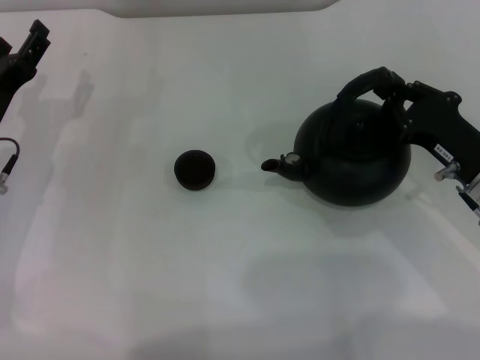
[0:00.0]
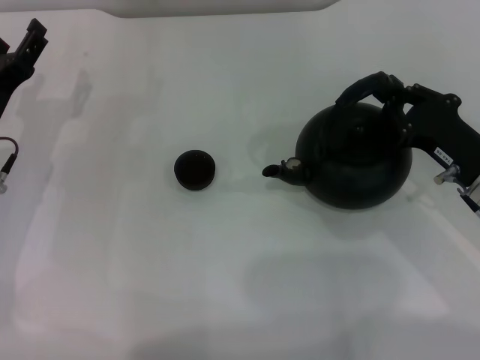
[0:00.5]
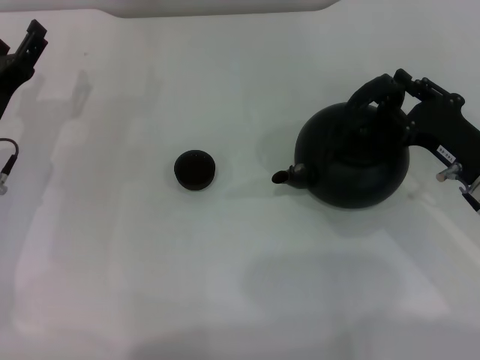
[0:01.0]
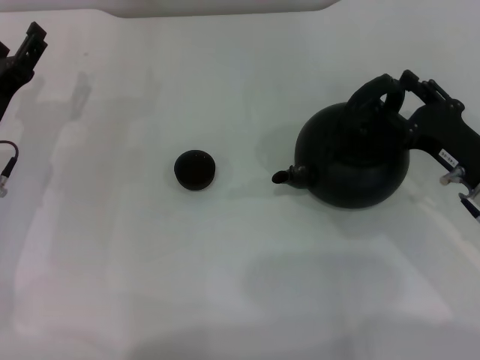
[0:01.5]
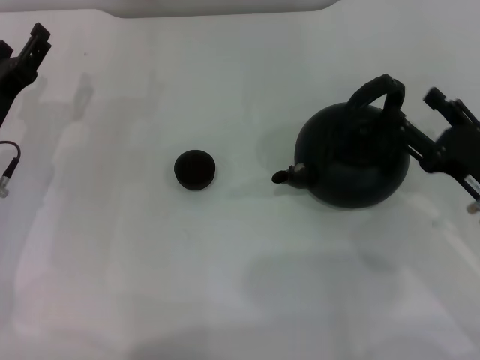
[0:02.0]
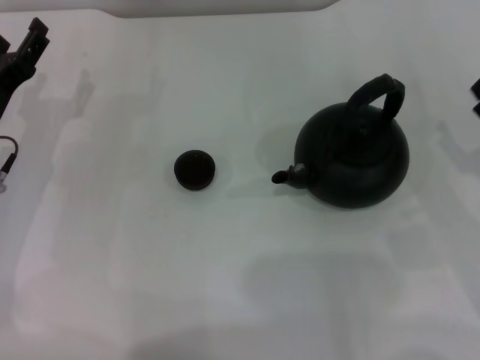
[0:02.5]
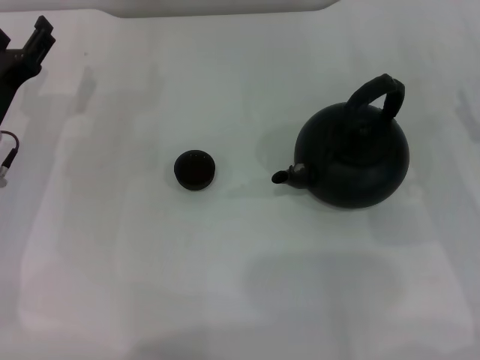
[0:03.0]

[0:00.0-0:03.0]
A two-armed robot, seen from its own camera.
Task of the whole recording: Grasp the handle of the teapot with one hand and pour tea into the teacup.
Step, 0:00.0 to 0:02.0: Put down the teapot with the right gripper.
0:00.0 to 0:01.5: The right gripper opens its fingers.
0:01.5 to 0:03.0: The right gripper heads to the right, covering approximately 5 cm, and opens up.

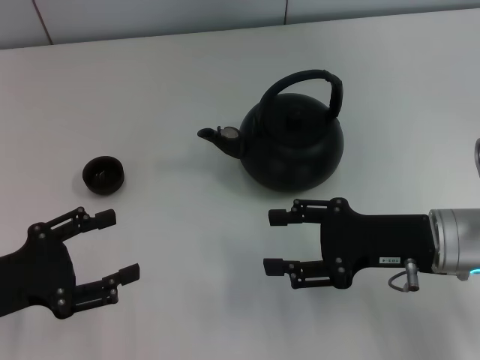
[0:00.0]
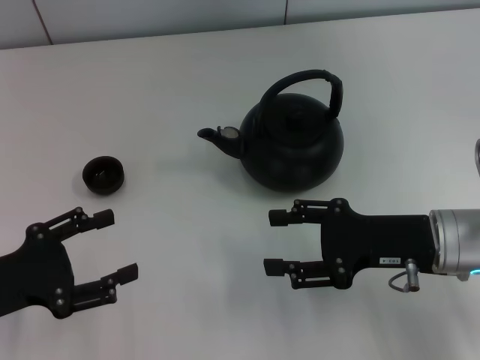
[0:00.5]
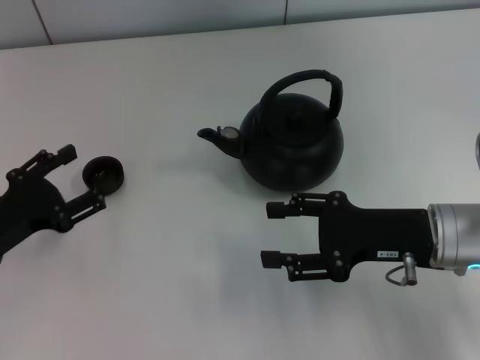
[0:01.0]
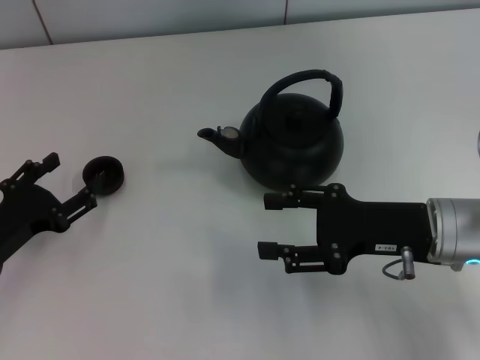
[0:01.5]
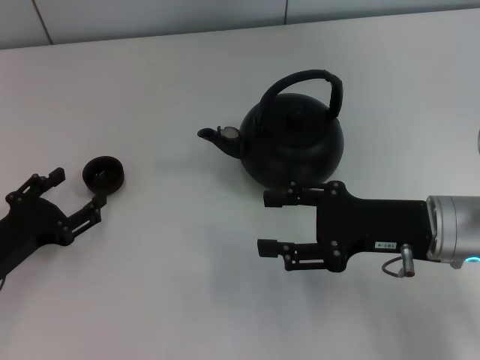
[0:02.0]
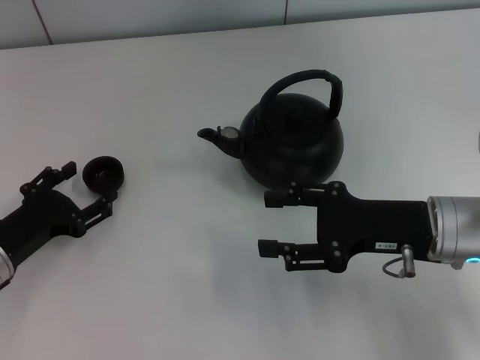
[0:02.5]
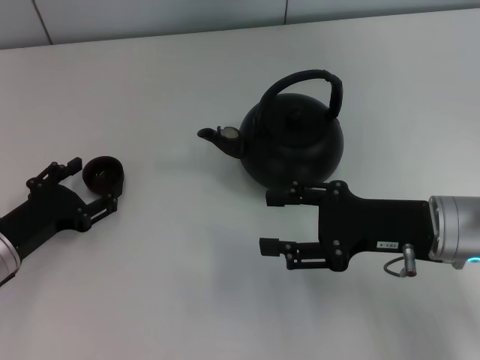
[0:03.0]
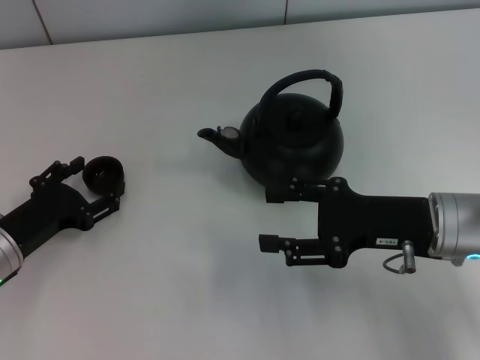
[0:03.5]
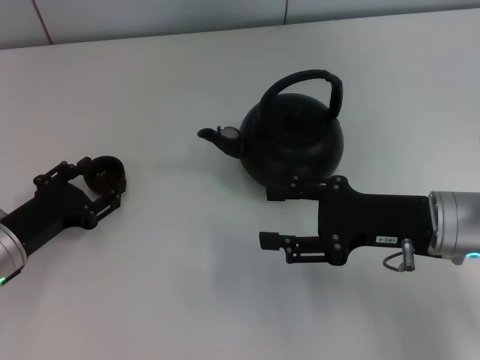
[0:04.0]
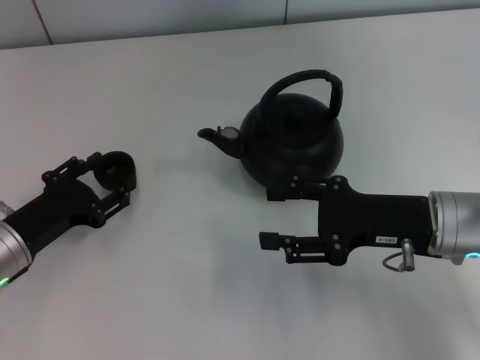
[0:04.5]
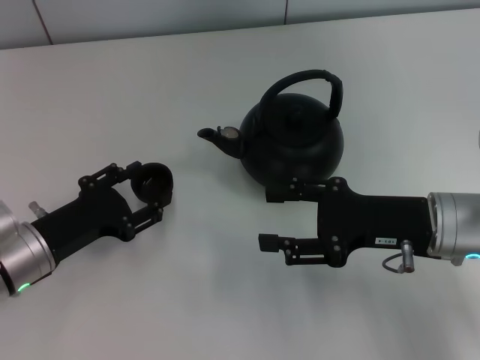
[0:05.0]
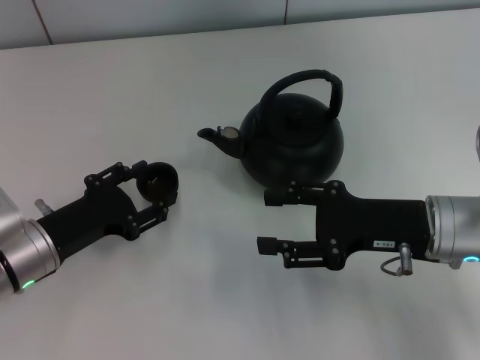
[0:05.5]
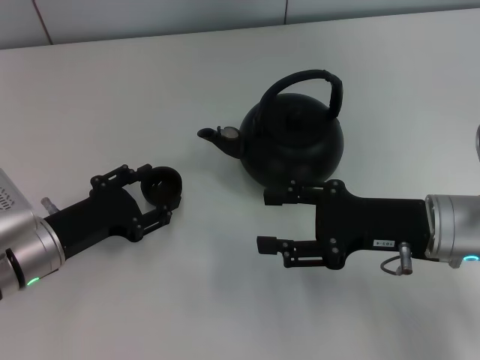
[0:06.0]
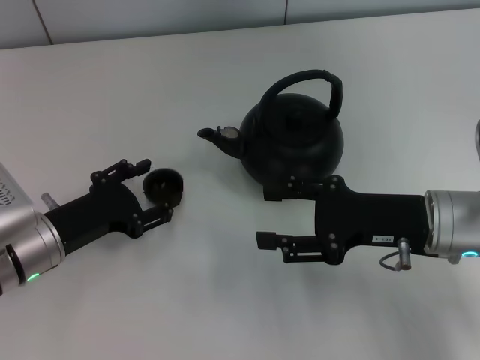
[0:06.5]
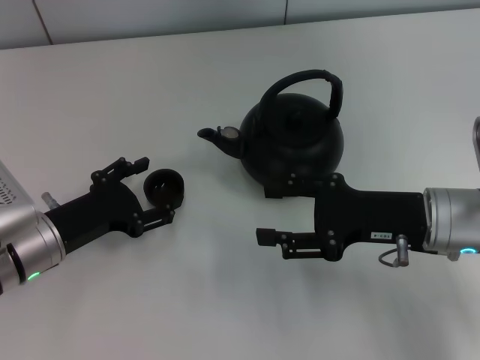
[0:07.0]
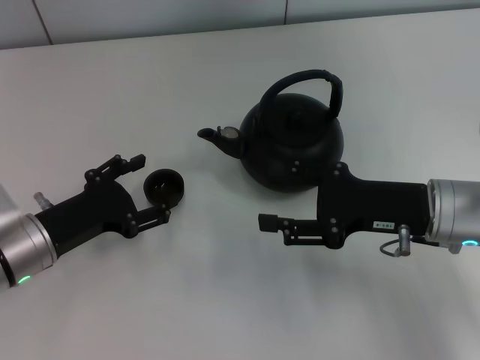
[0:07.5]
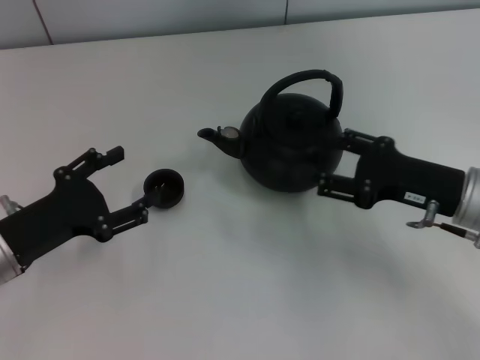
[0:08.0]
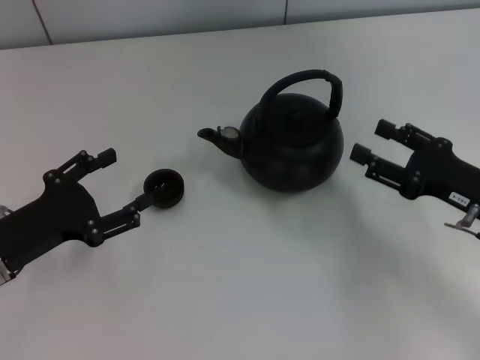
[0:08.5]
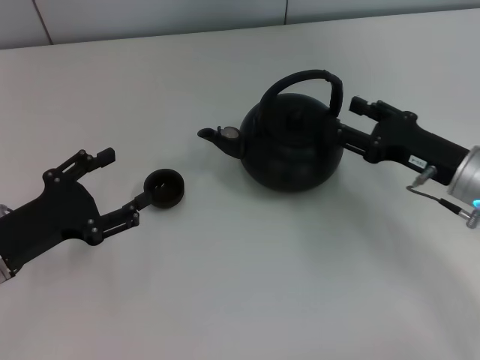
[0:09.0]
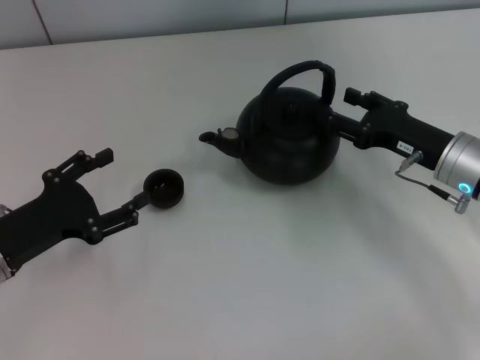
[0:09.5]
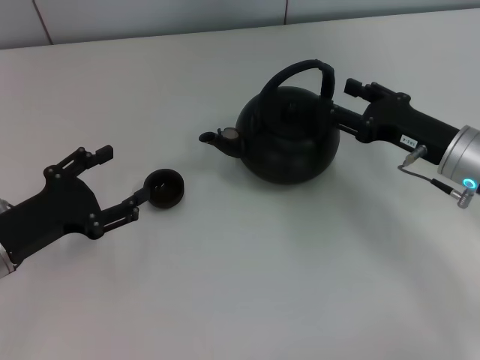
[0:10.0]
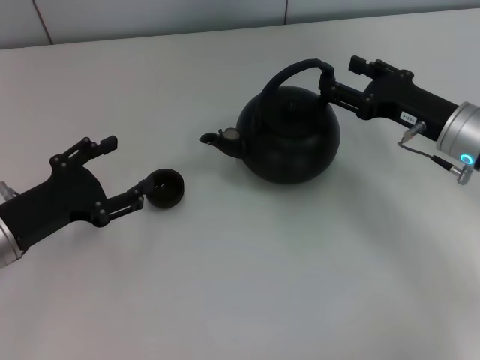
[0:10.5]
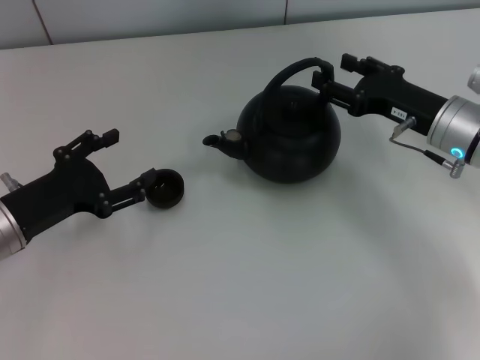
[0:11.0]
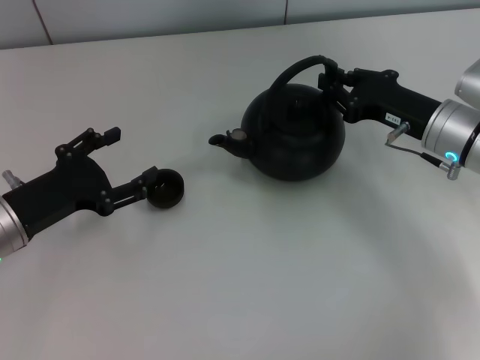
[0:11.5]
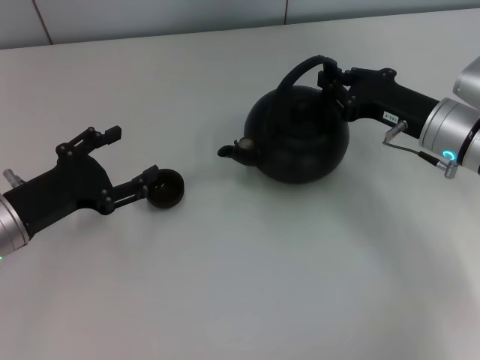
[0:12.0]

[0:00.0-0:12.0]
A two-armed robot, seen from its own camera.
Task of the whole recording: Grasp the handle of the teapot with one hand and pour tea into the teacup.
Step, 0:00.0 to 0:04.5: Pick up the teacup with the left gripper.
Step, 0:05.0 to 0:07.0: Place the teacup in the center of view with the left gripper.
0:00.0 to 0:02.0: The left gripper travels downward by about 5 cm.
0:02.0 to 0:04.0: There are only small adjustments of the grippers.
0:04.0 to 0:06.0: The grippers stay close to where they were, moving slightly.
0:06.0 to 0:08.0: The left gripper opens up.
0:10.0 to 0:12.0: The right gripper closes up.

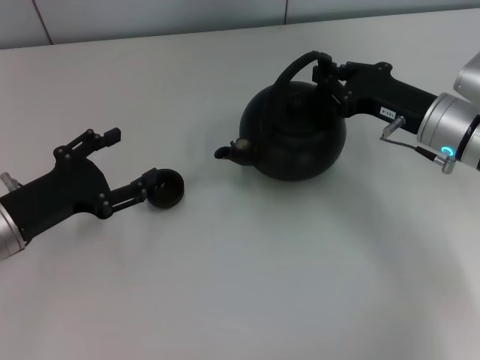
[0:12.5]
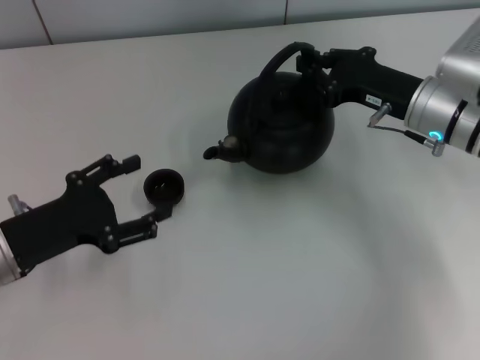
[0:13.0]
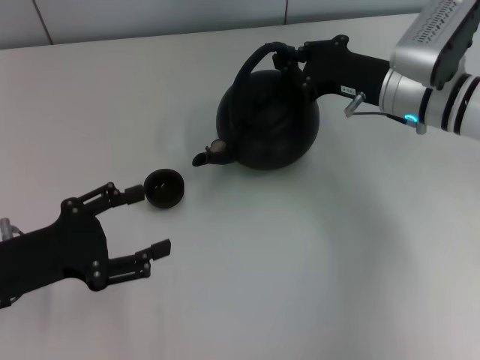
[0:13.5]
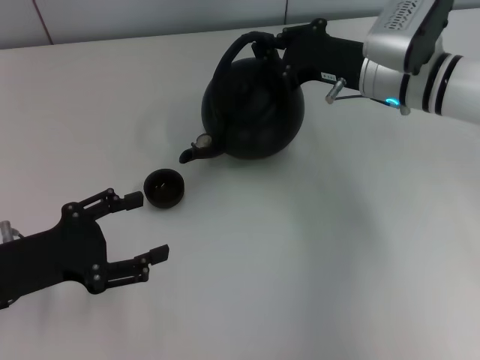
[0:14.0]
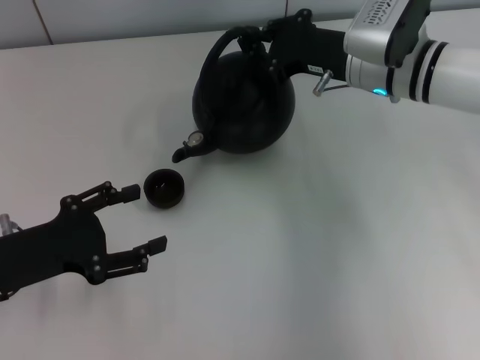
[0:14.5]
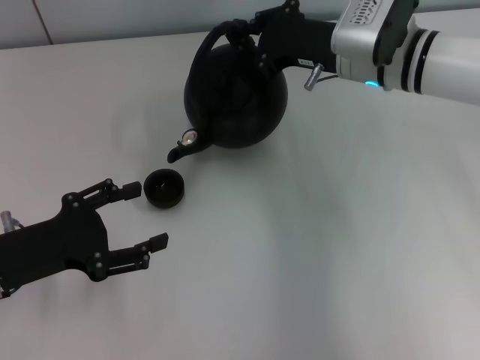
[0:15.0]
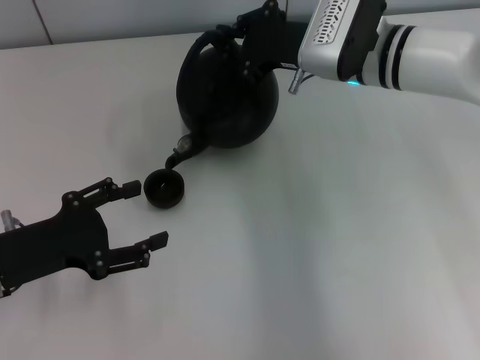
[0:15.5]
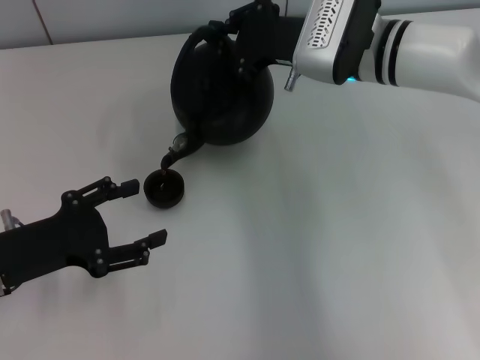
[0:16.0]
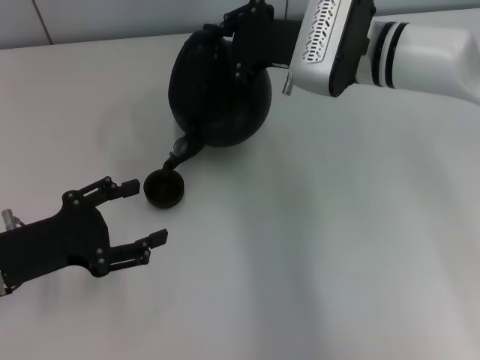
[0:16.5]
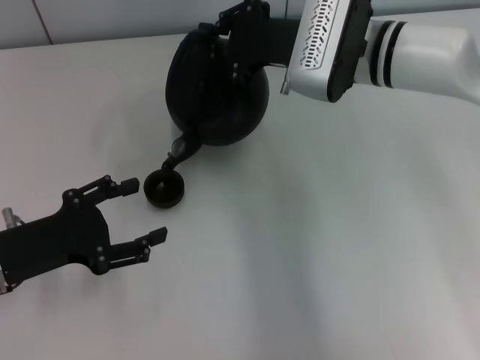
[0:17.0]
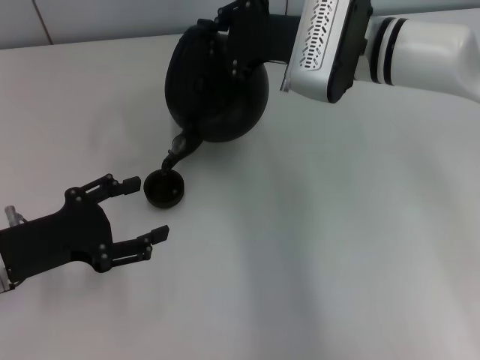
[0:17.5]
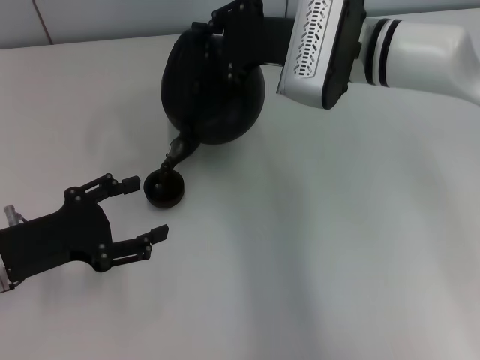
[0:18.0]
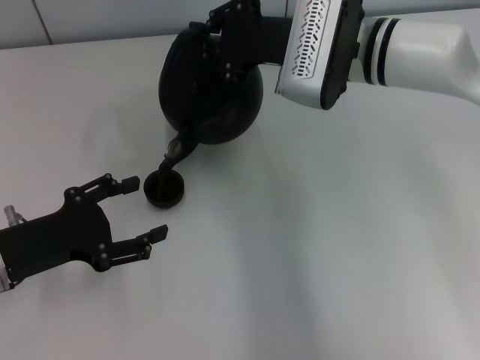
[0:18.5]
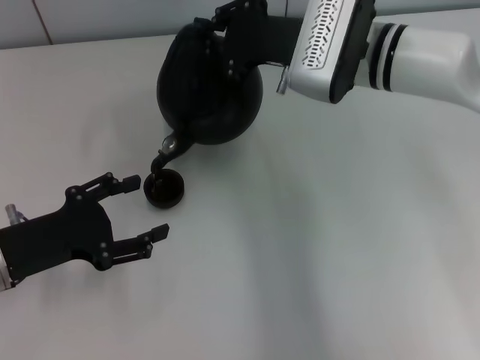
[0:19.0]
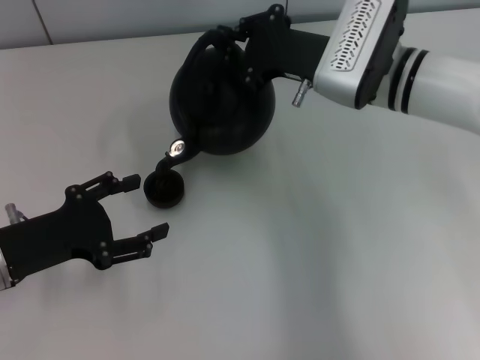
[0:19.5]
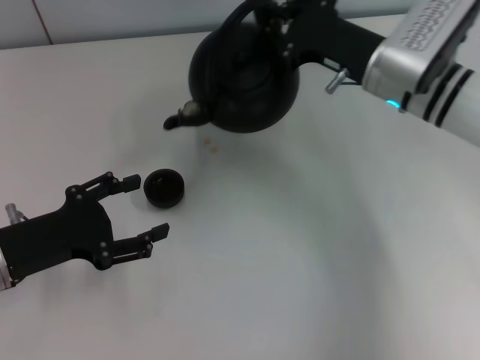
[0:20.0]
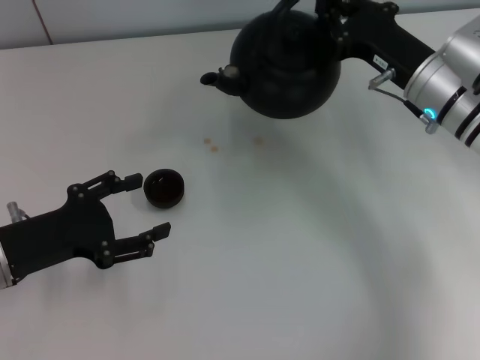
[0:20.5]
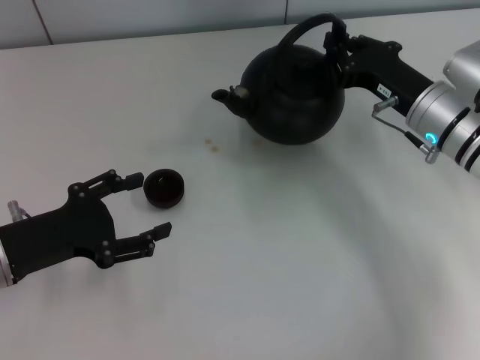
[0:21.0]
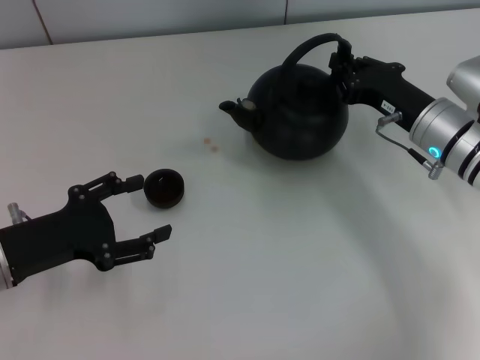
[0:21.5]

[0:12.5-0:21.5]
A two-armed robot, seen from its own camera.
Task of the whole recording: Grasp the handle of the teapot with one hand and pour tea into the teacup.
0:12.5 to 0:14.5: The right gripper goes approximately 10 cm to the left and forward.
0:17.0 to 0:19.5: The grippers make only small movements.
0:19.5 to 0:21.5: The right gripper shifts approximately 10 cm to the right and downward.

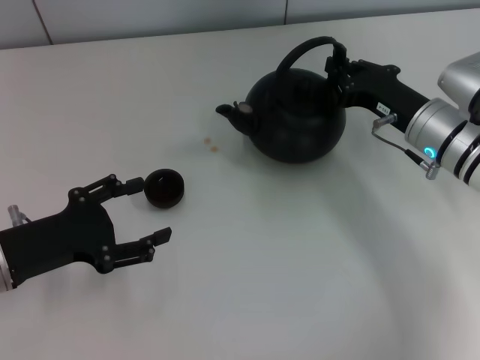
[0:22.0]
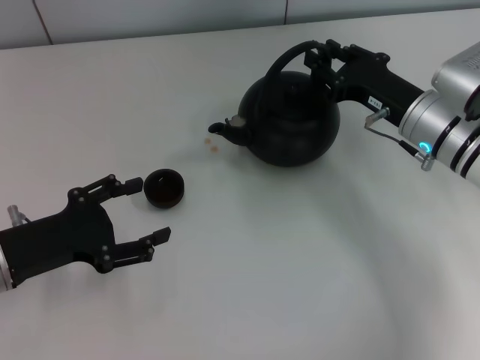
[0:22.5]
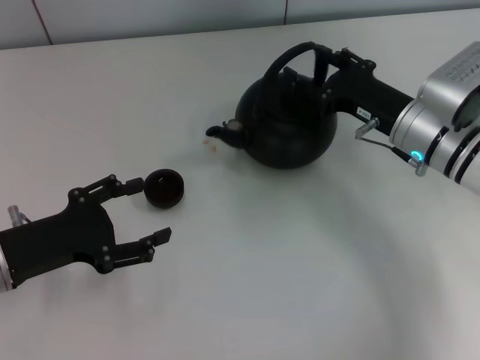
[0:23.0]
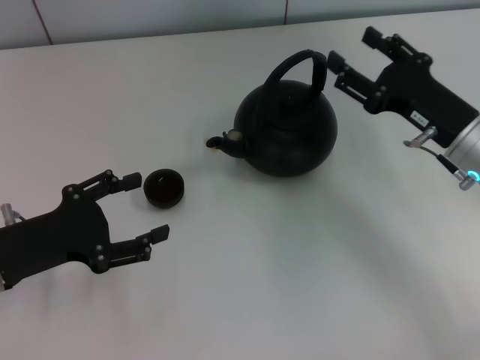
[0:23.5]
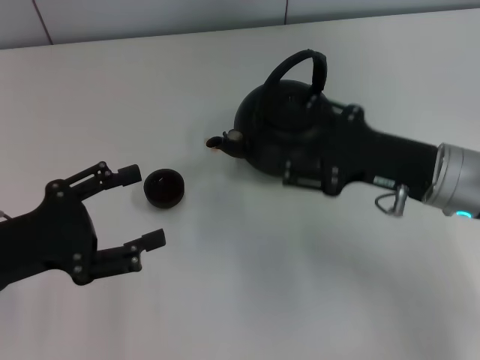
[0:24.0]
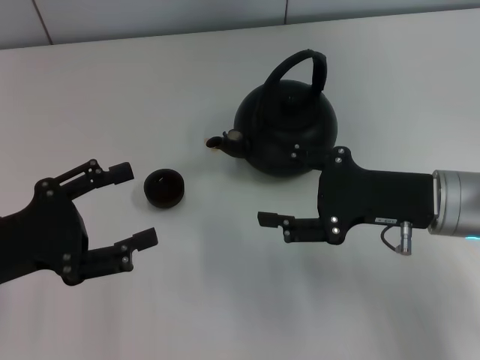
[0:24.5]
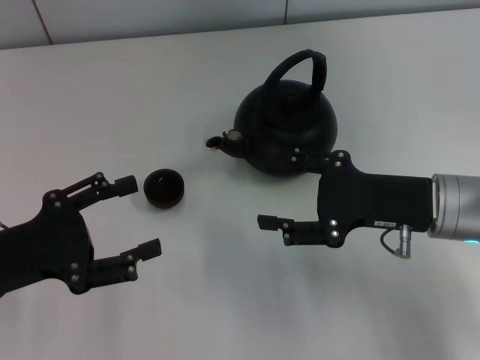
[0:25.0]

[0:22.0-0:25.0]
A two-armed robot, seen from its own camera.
Task of the whole recording: Grasp the handle of the teapot with one hand and pour tea into the teacup.
0:22.0 to 0:23.5: The right gripper changes place by about 5 cm, and opens up.
